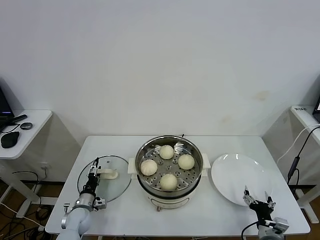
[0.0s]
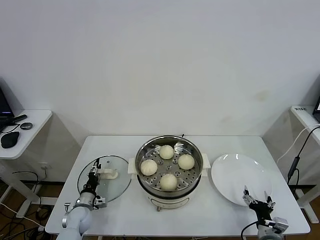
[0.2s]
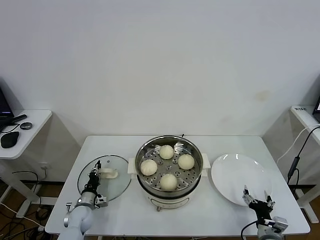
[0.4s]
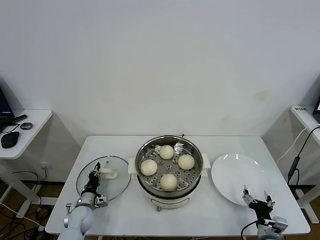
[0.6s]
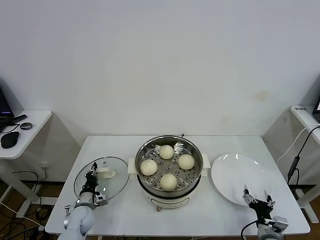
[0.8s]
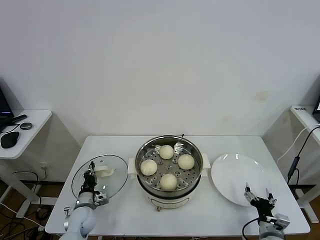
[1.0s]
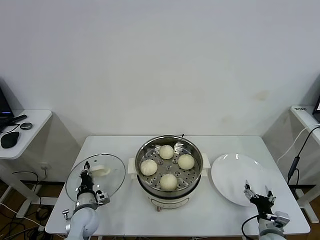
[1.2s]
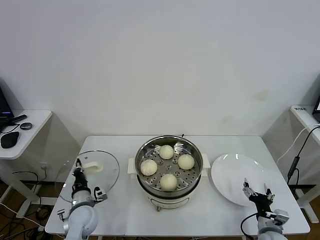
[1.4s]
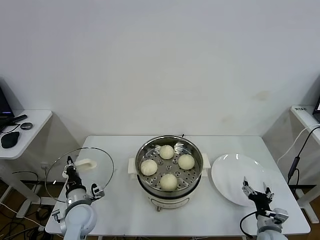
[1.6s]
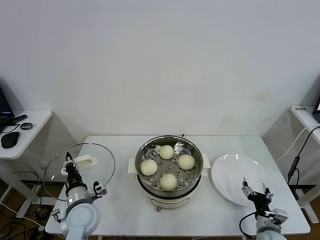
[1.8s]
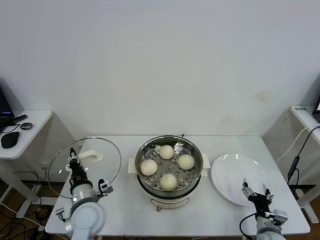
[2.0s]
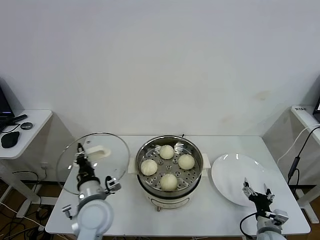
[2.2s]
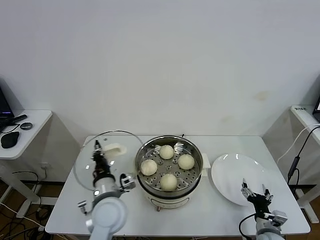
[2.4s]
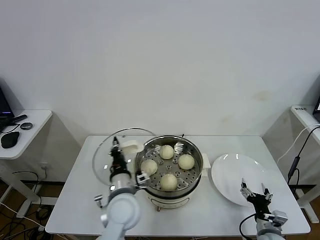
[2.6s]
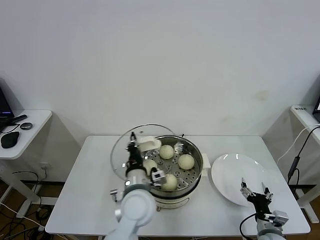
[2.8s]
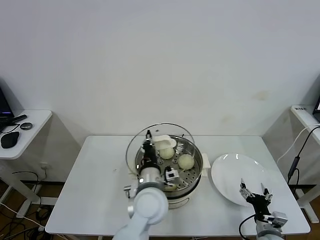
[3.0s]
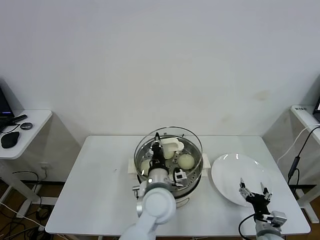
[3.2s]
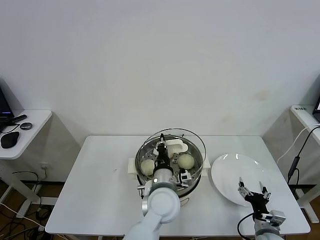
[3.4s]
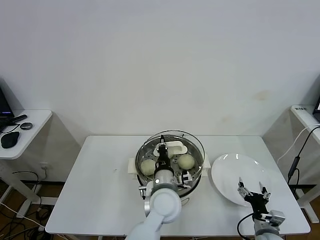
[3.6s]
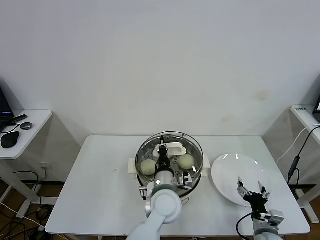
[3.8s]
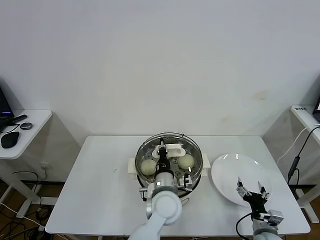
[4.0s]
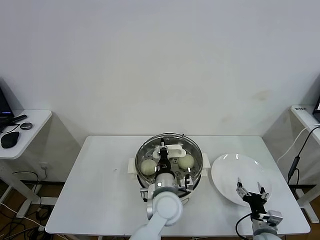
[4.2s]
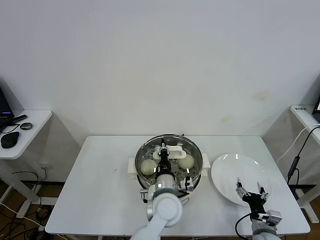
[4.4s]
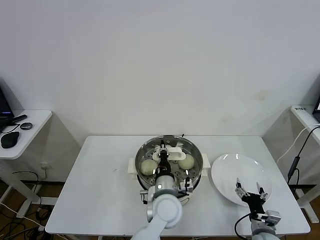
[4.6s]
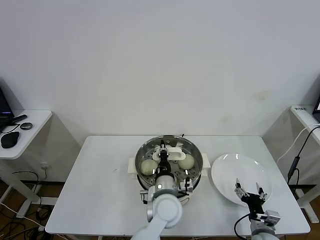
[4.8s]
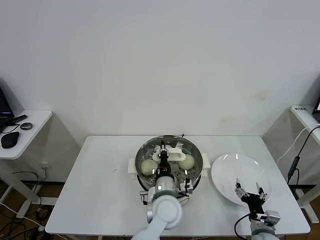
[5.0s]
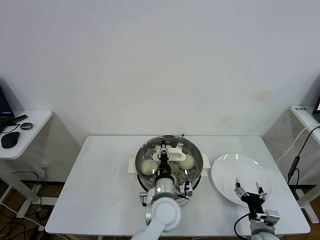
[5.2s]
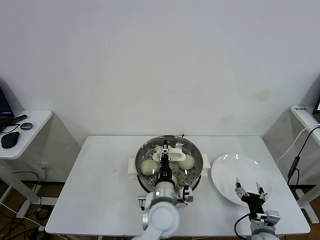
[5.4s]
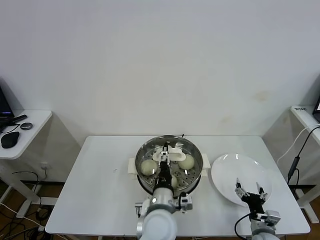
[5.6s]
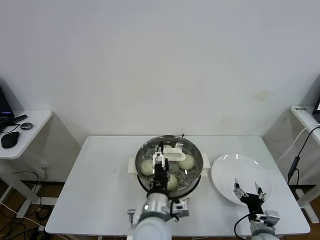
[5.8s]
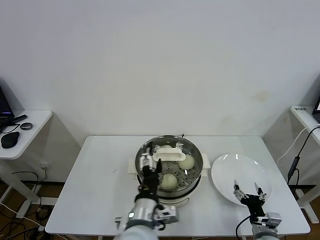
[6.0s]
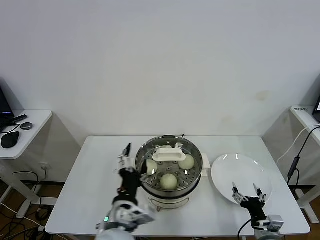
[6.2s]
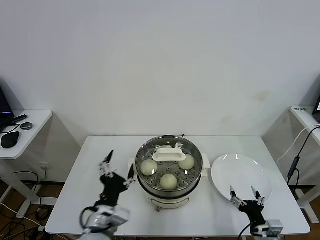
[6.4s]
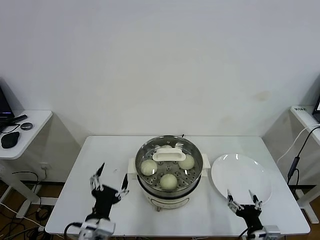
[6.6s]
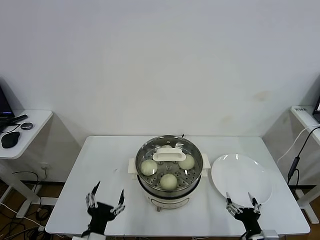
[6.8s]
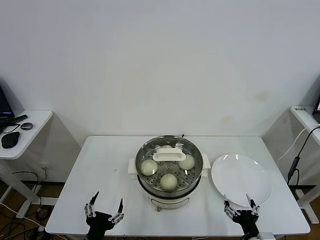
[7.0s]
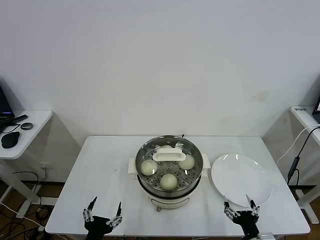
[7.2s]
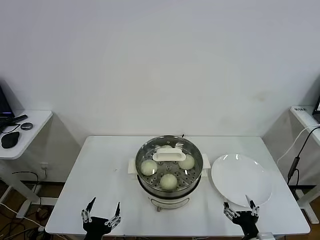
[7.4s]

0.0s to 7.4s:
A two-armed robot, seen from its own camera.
Task of the whole recording: take steamed baozi put them in steamer.
Step, 0.8s to 5.6s: Place the pot lid on the steamer with left gripper.
0.0s to 1.4s: The left gripper is displaced upward and to the right by some 10 cm, and closes its fingers.
1.4s to 3.0s: The left gripper heads to the right and upward, covering approximately 30 cm.
3.0s to 4.4s: The left gripper goes some 5 cm to the right.
4.4s to 6.0s: The left gripper is displaced backward, to the left and upward by some 15 cm, and opens up.
6.0s to 7.4s: The left gripper goes roughly 20 cm to the left, backward and downward; the right gripper travels backward by approximately 5 cm.

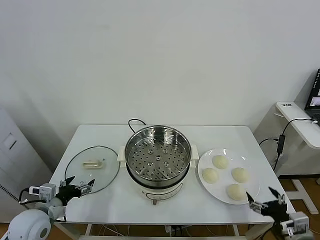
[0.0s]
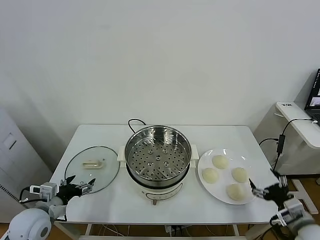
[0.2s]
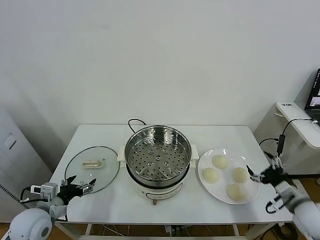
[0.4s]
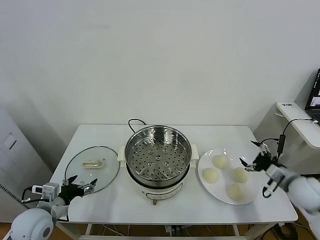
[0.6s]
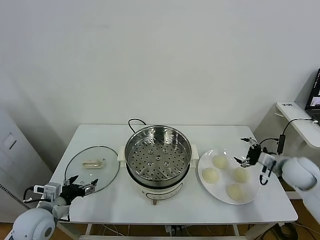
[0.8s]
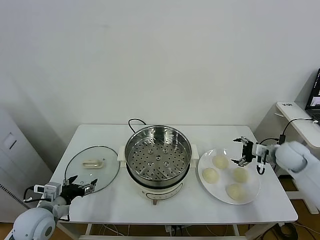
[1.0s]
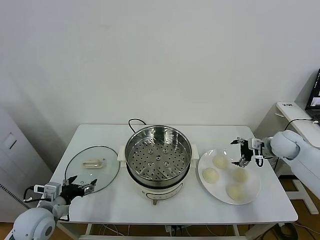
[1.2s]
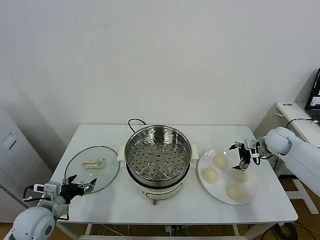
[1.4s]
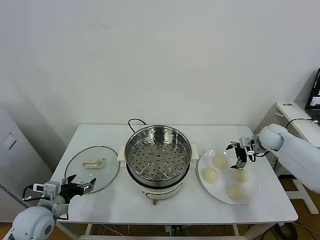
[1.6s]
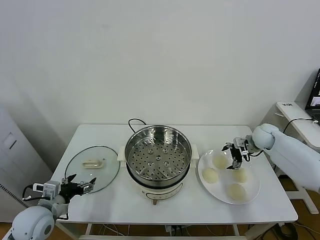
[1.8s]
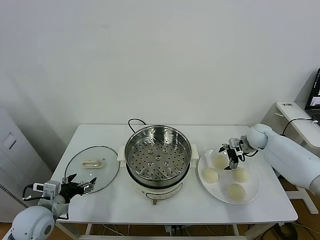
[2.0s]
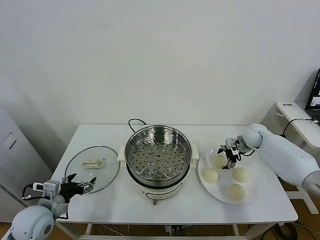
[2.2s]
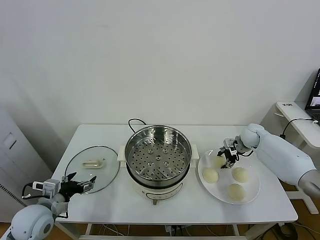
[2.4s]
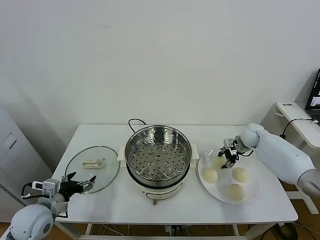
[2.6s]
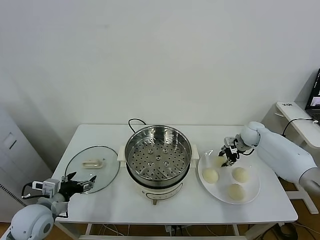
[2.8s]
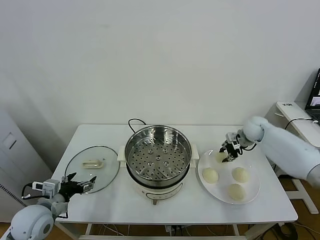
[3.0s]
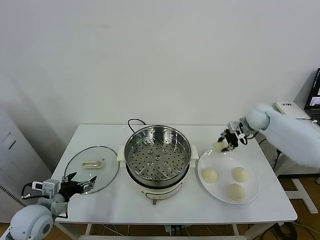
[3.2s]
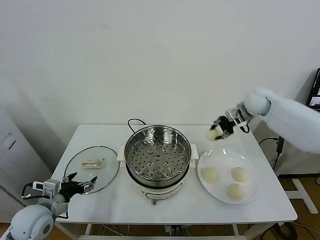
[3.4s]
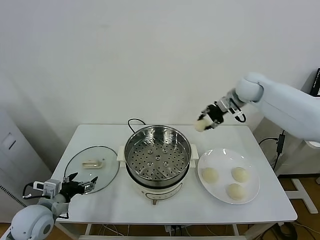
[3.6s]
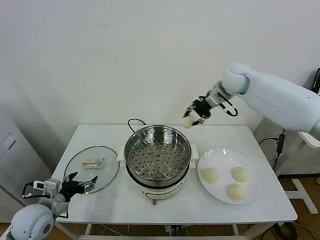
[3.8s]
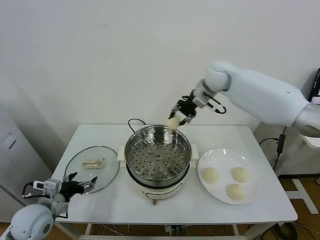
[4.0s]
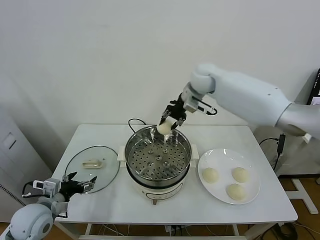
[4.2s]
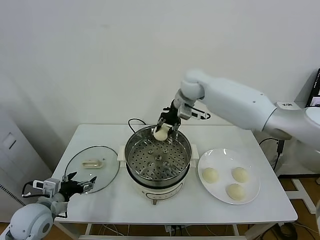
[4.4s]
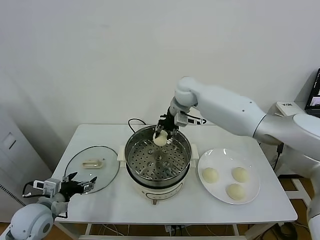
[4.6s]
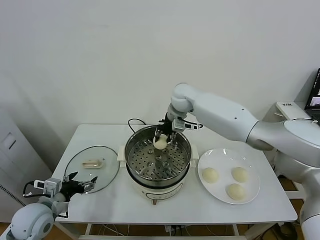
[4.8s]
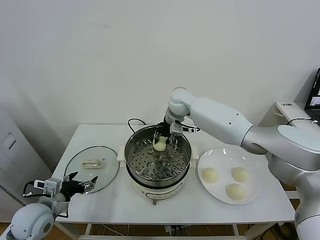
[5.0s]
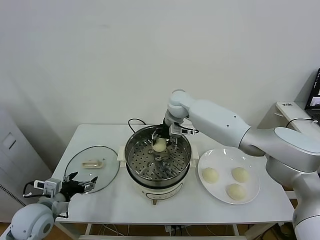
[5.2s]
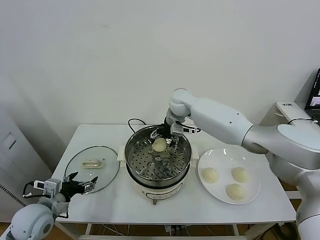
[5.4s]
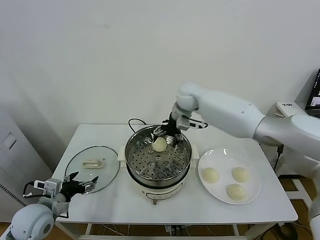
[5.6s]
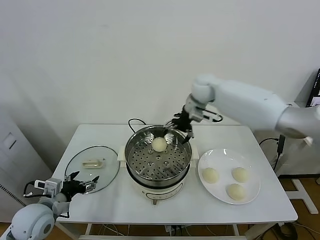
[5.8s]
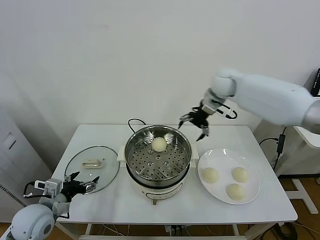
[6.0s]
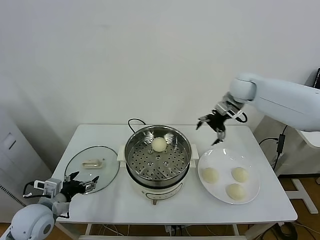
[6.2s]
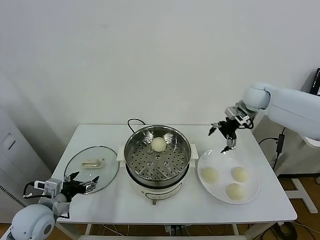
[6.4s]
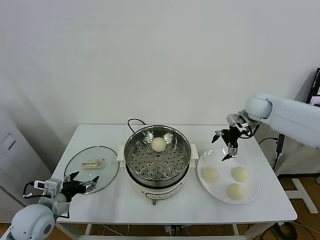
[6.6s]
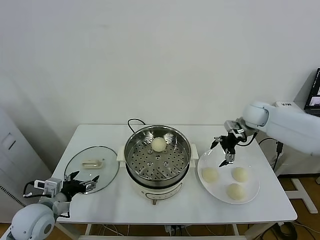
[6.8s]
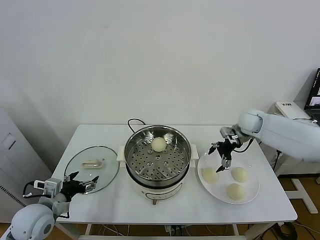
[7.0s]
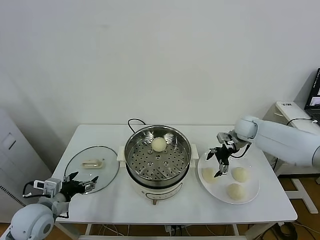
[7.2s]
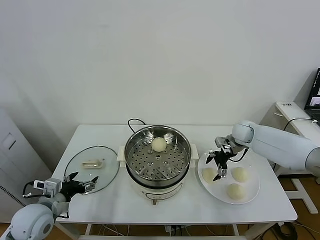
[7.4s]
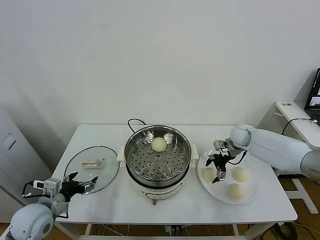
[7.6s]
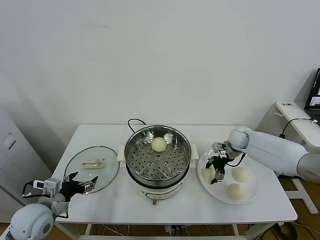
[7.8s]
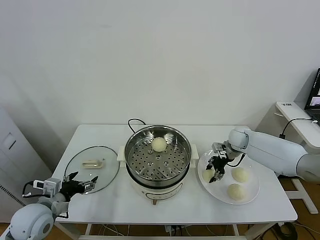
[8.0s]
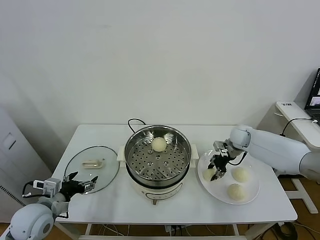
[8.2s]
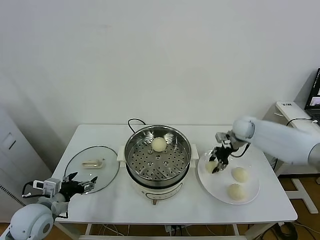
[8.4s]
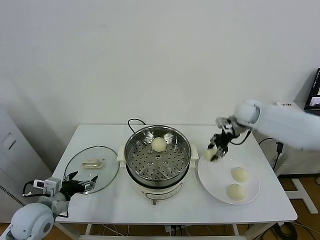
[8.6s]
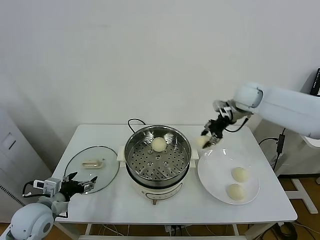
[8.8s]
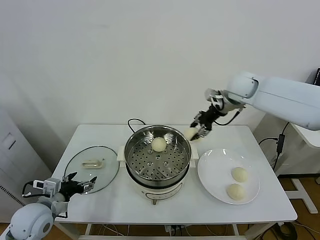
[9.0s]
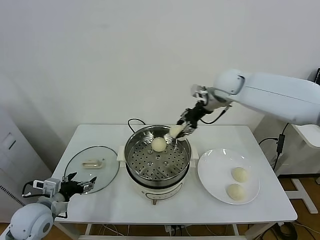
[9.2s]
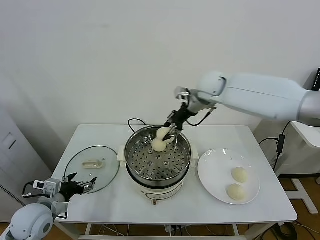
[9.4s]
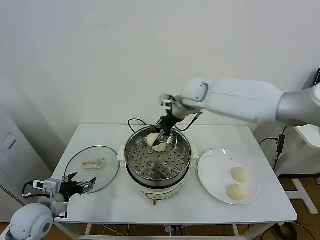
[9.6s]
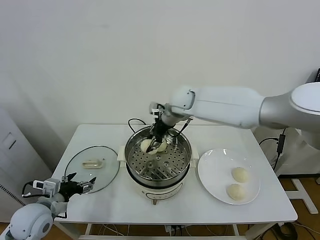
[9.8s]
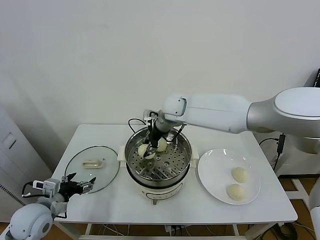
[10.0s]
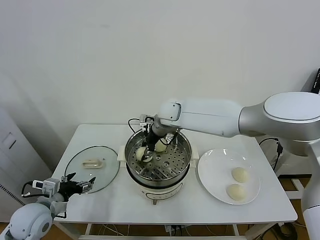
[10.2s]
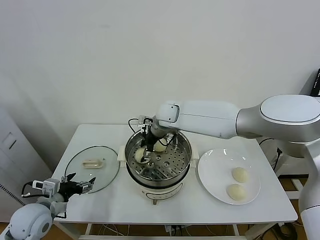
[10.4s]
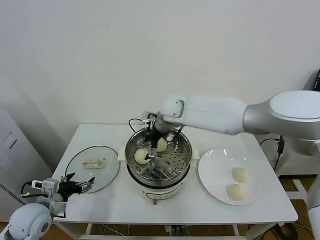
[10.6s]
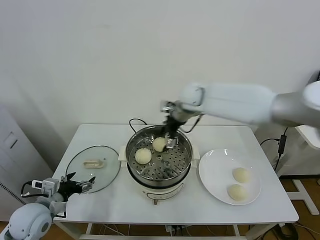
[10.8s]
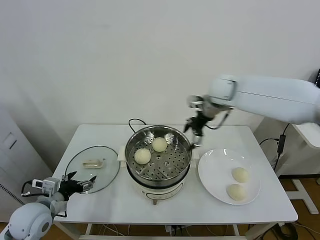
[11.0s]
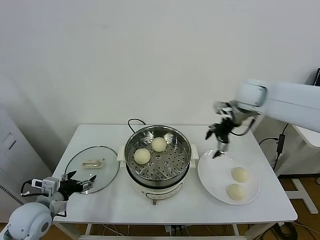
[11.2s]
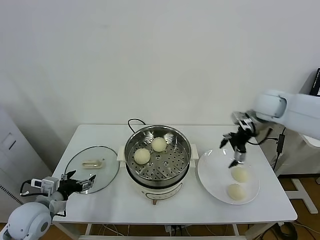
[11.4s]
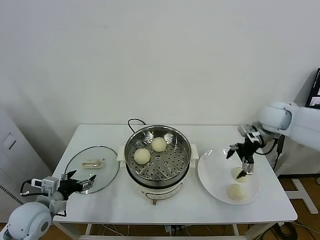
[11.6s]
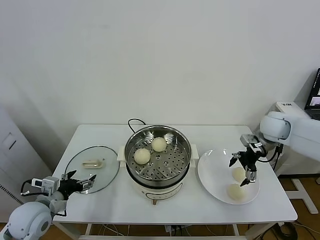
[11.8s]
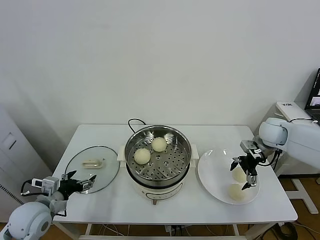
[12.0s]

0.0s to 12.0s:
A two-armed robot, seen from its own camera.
Task of the whole recording: take steamed baozi put them in steamer.
Step, 0.0s to 2.2s: Grasp the baozi in the plate with right gripper.
Step, 2.6s to 5.4s: Place the baozi on the steamer with right gripper.
Step, 5.6s to 8.0s: Grasp the baozi in the plate with right gripper.
Step, 8.2s to 10.4s: Place the baozi on the steamer with right gripper.
1.6s to 3.0s: The right gripper ends up roughly 5 cm from where it was, and closes up.
3.0s to 4.4s: The right gripper heads to the left and upward, covering some 30 cm.
4.4s to 6.0s: The right gripper shifts about 15 cm to the right, and opens its fingers.
6.0s to 7.6s: The right gripper shifts some 25 cm downward.
7.6s to 9.0s: The right gripper goes approximately 25 cm upward, and closes its fingers.
9.0s to 10.4s: The right gripper moves to the left and downward, roughly 25 cm, and opens up.
10.4s to 12.0s: The right gripper moves to the right, about 35 cm.

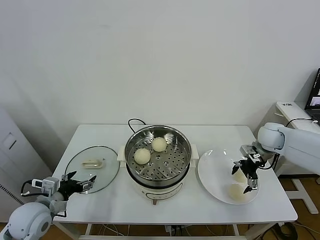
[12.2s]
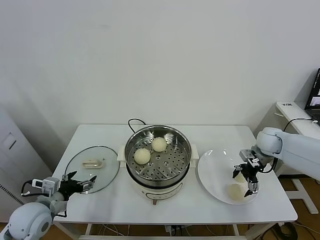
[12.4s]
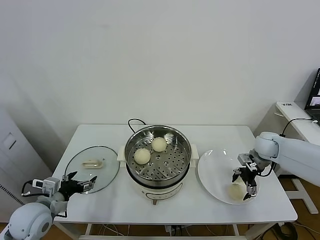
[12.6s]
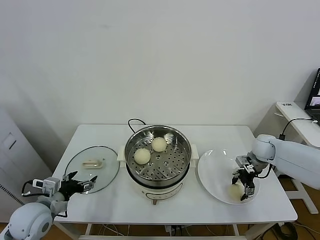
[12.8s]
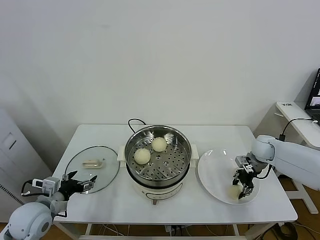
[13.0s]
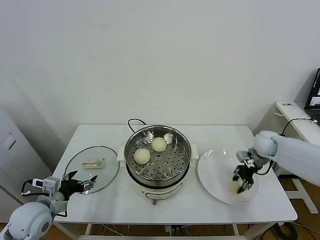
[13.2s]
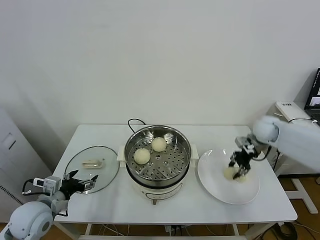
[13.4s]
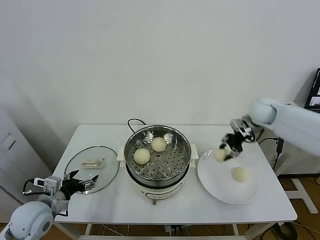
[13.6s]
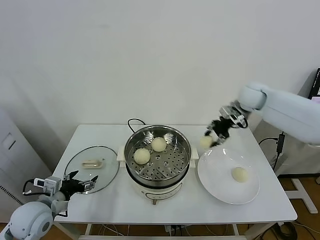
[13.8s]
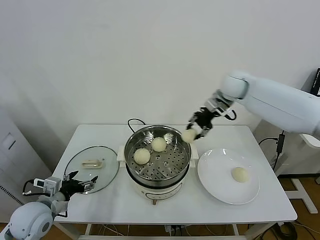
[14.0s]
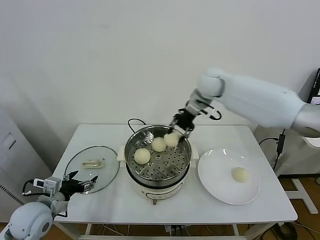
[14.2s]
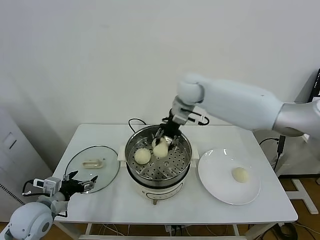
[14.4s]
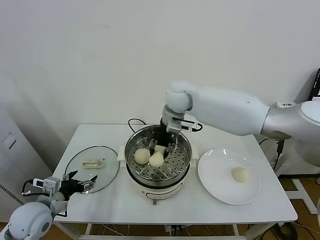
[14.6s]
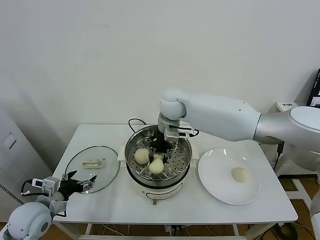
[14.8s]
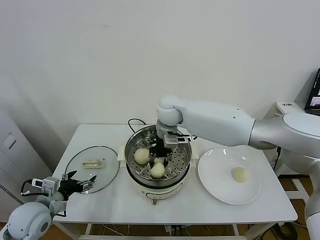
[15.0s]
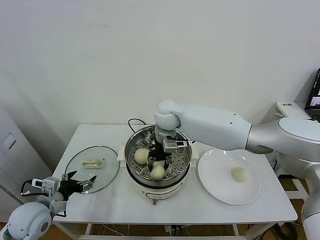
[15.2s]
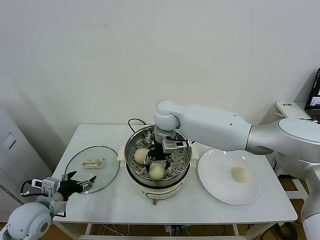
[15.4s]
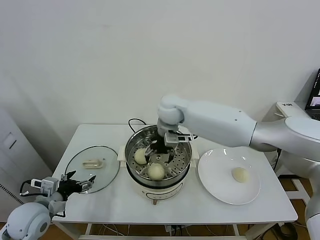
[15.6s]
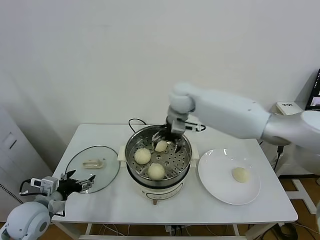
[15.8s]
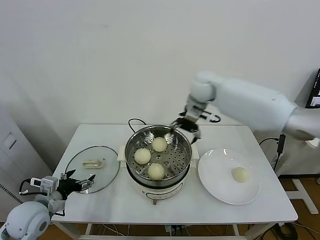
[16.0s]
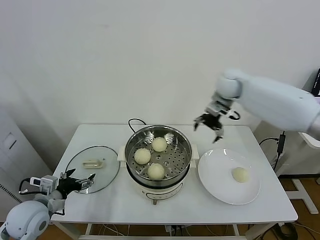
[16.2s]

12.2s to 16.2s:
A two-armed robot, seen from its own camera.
Task of the whole recording: take steamed baozi put them in steamer.
Step, 13.2s to 15.6s: Place the baozi on the steamer with right gripper.
12.2s to 13.6s: The right gripper travels upward, forward and to the left by approximately 10 cm, and closes its fingers.
13.6s to 14.8s: The right gripper shifts approximately 30 cm to the left.
14.8s to 16.2s: The right gripper heads to the right, covering about 20 cm, and opens its fingers.
